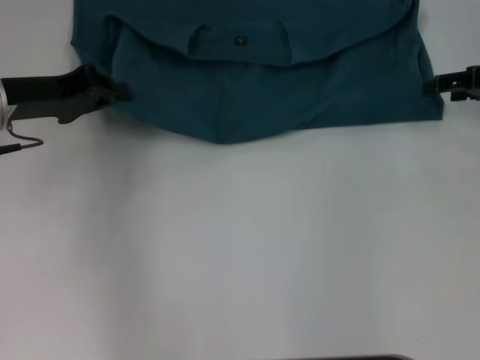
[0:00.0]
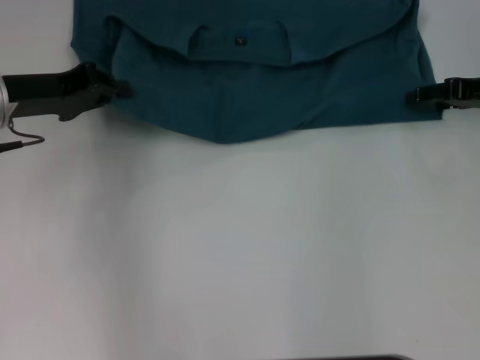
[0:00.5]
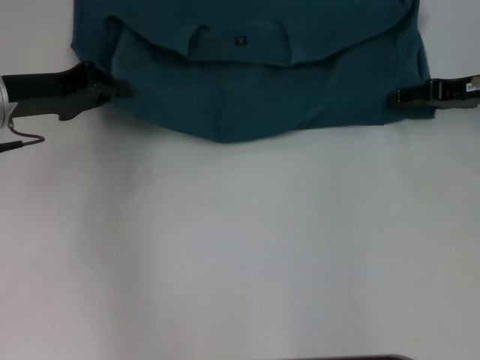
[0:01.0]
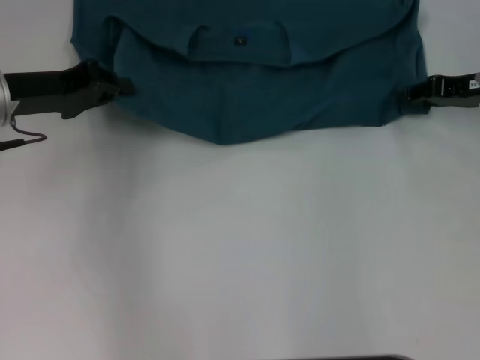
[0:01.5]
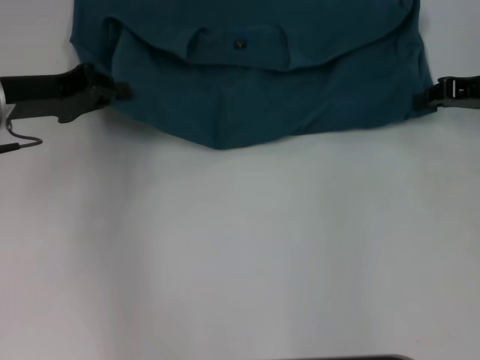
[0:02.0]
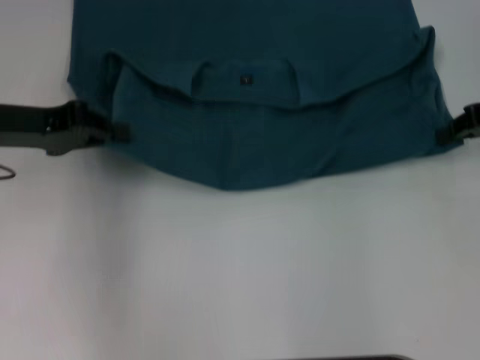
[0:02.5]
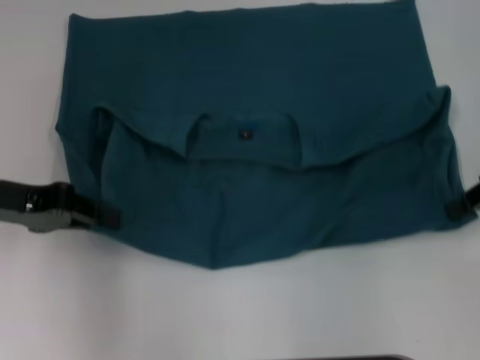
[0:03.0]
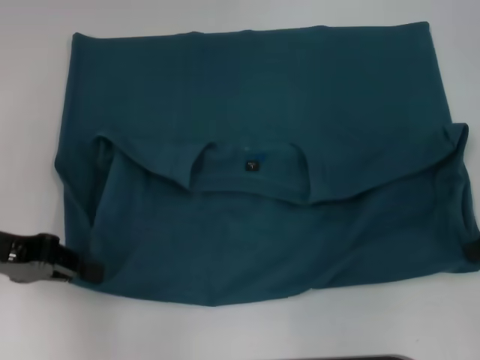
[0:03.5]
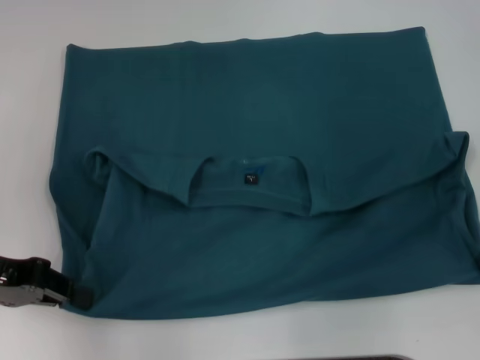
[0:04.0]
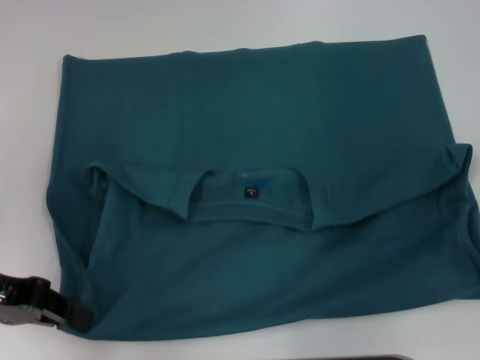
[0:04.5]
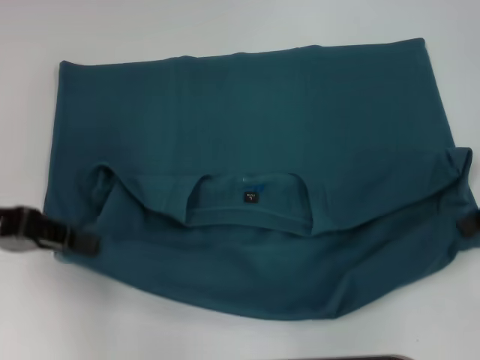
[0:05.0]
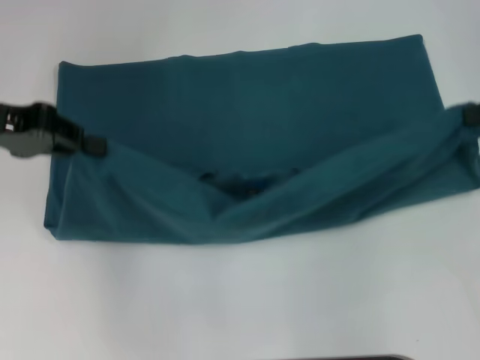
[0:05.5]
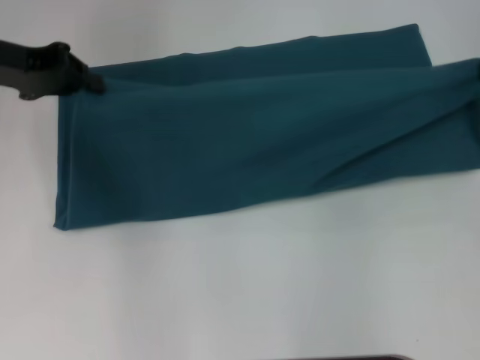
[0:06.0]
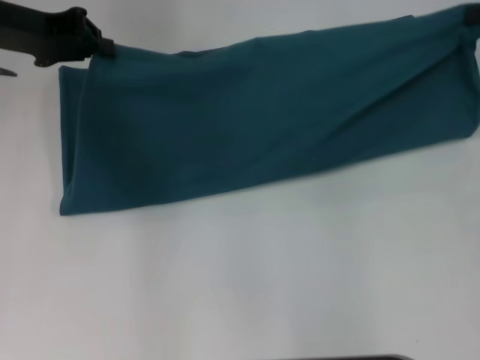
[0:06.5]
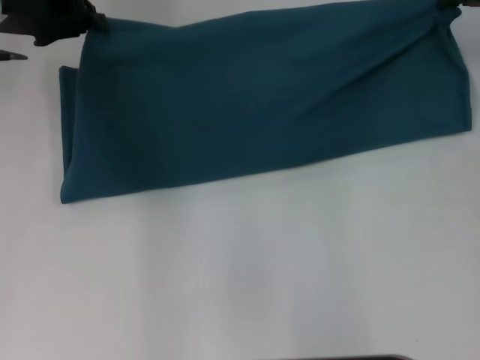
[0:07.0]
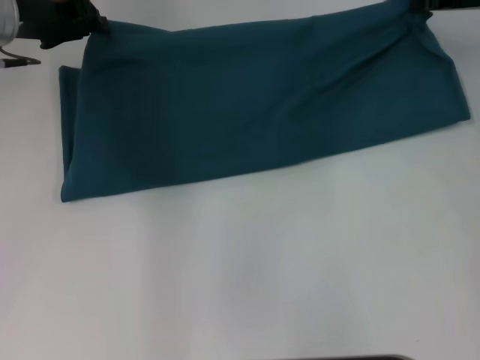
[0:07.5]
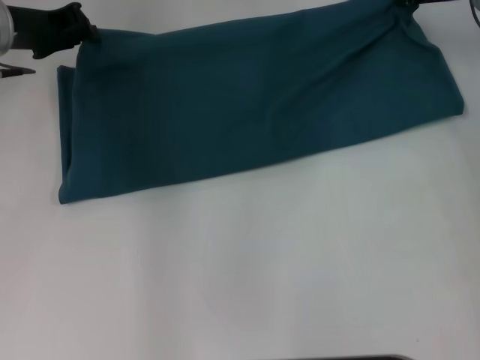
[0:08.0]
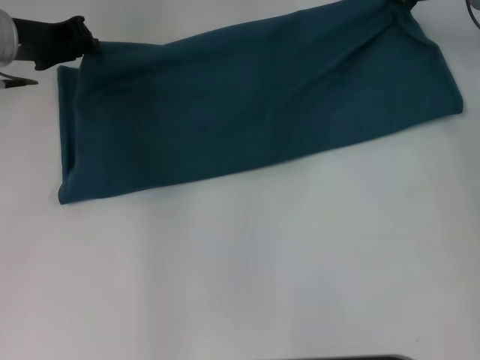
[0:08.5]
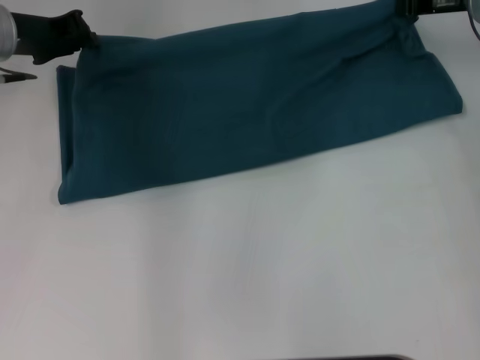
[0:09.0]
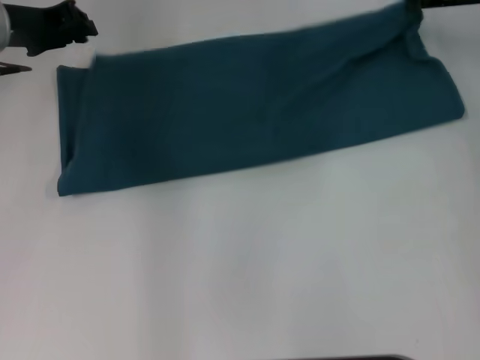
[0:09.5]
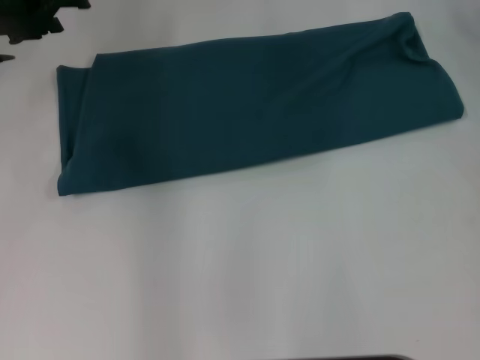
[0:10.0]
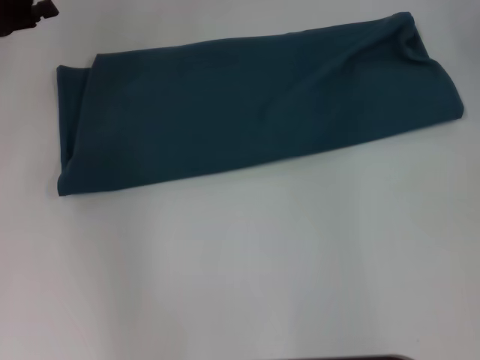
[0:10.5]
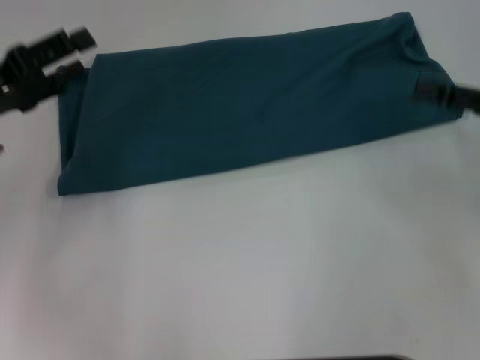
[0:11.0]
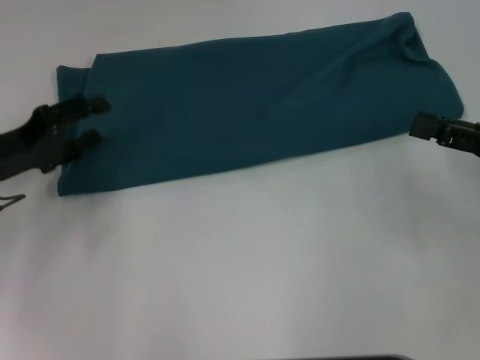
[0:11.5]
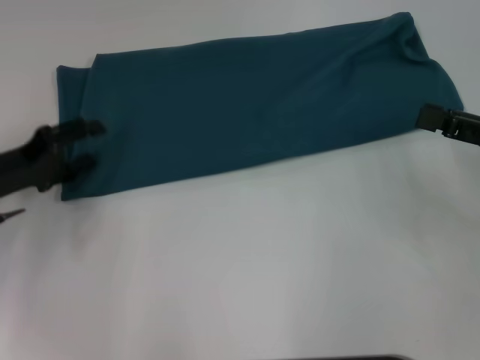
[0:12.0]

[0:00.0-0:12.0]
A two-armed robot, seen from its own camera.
Step, 0:00.0 to 0:04.0: Pull the clothes with your left hand.
Step, 0:00.0 to 0:04.0: Pull the clothes with your right hand.
Step, 0:04.5 to 0:09.5: Fold the clothes to the right.
0:00.0 to 0:02.0: The right gripper closes.
0:02.0 to 0:04.0: The two grippers go some 10 cm backward.
0:04.0 to 0:06.0: The right gripper heads forward and upward, covering approximately 10 cm. The left gripper shifts approximately 15 cm forward and upward.
0:06.0 to 0:08.0: The left gripper shifts by roughly 5 cm. Meanwhile the right gripper moves to the left and forward, some 15 cm.
0:08.0 to 0:10.0: The right gripper ends up some 5 cm from where it was, and opens up; the left gripper opens up.
0:10.0 to 0:12.0: The two grippers go roughly 20 cm backward and downward. The right gripper opens.

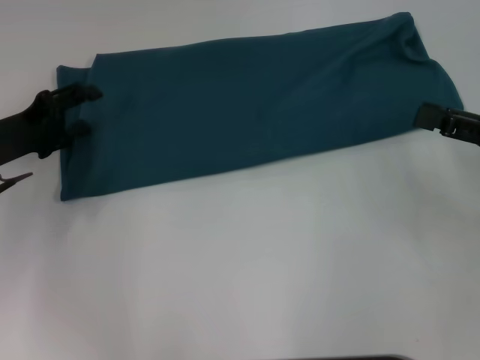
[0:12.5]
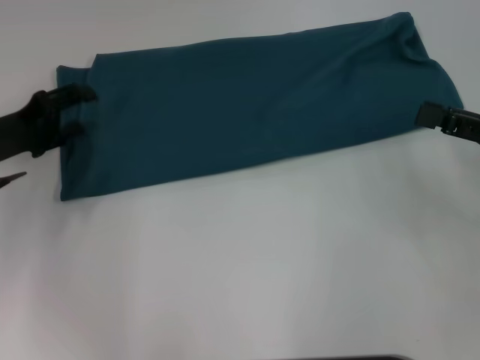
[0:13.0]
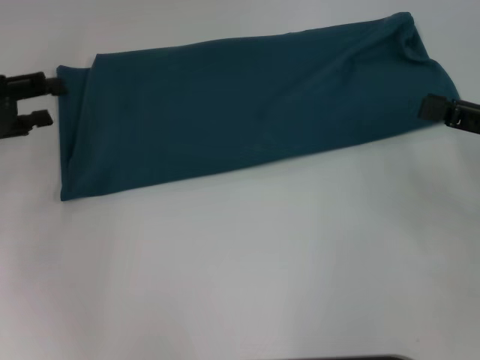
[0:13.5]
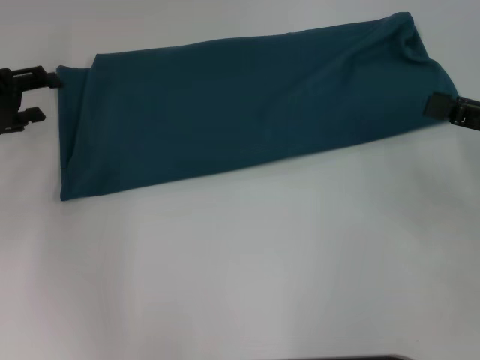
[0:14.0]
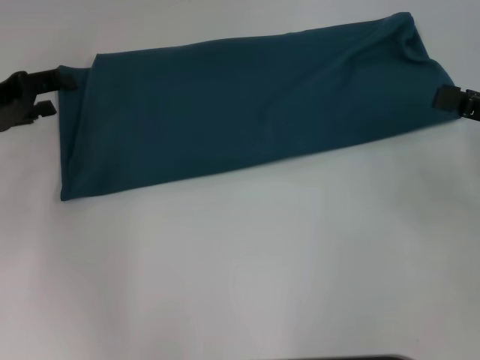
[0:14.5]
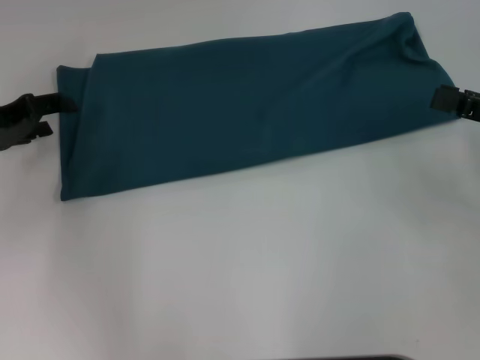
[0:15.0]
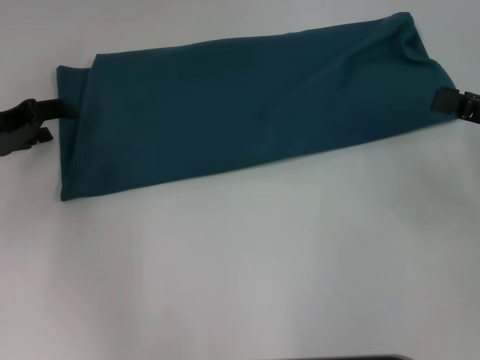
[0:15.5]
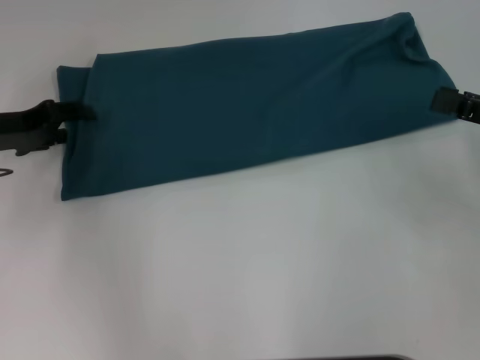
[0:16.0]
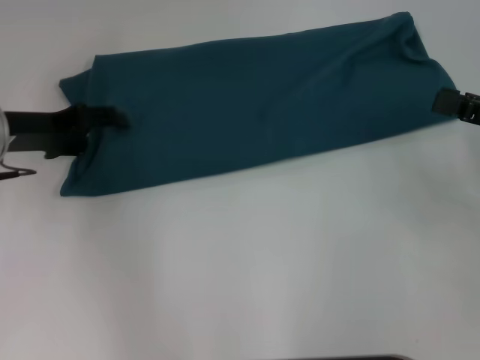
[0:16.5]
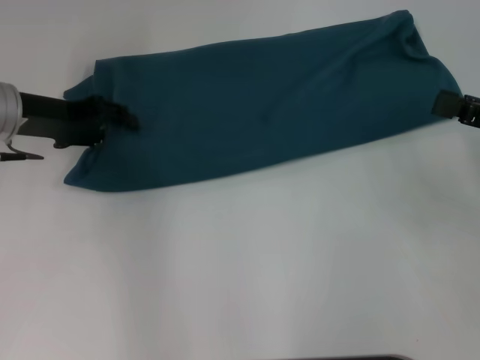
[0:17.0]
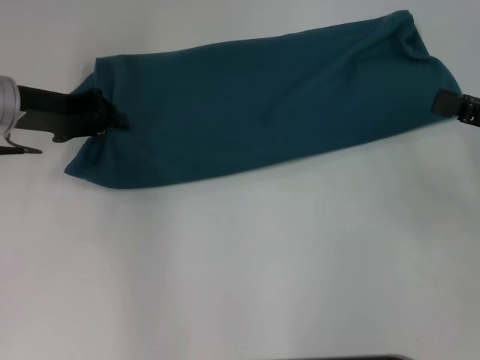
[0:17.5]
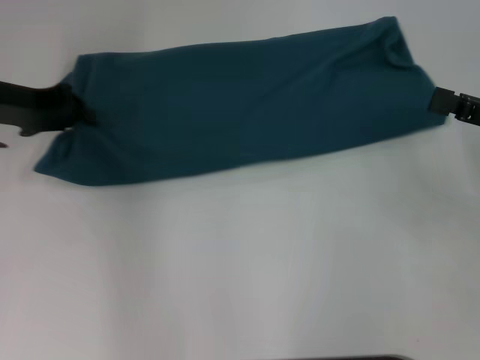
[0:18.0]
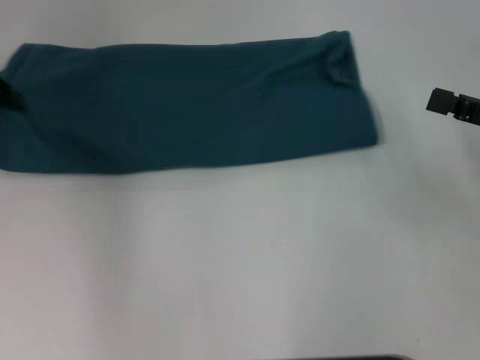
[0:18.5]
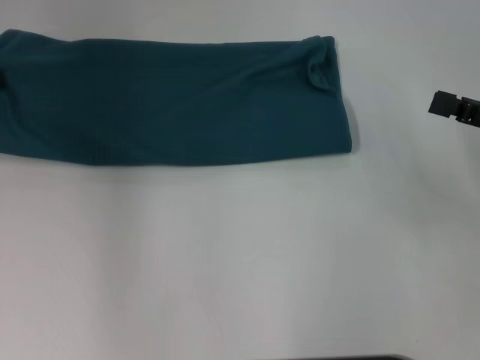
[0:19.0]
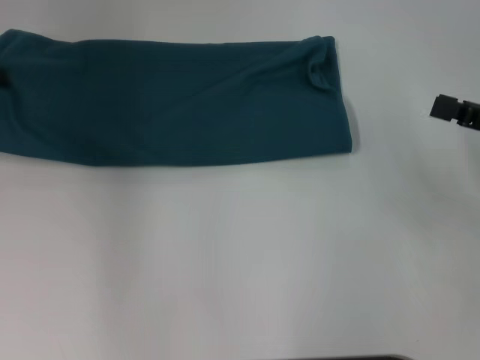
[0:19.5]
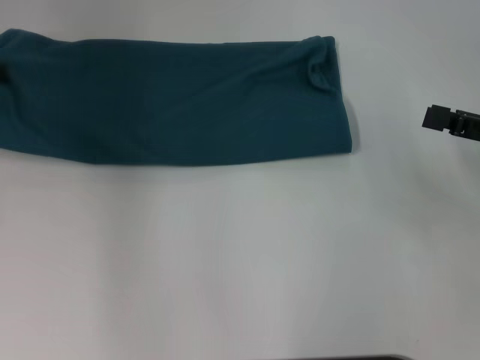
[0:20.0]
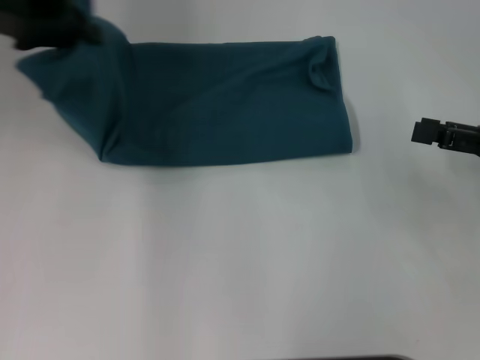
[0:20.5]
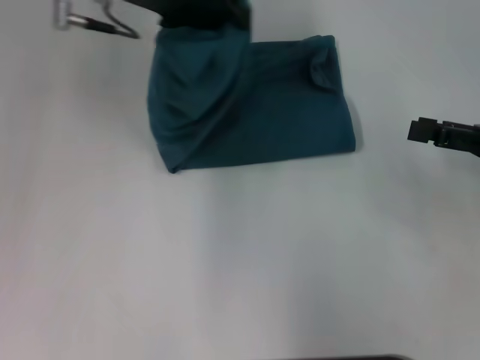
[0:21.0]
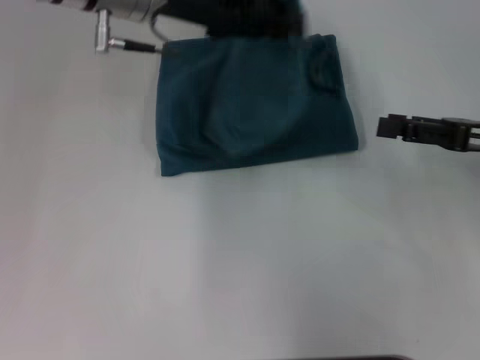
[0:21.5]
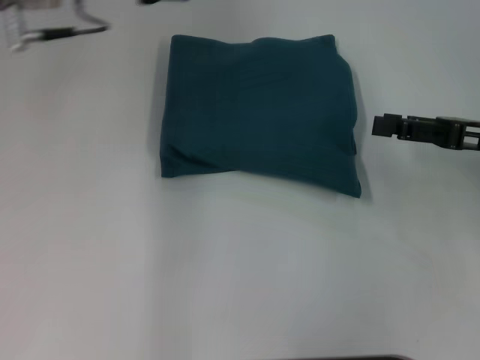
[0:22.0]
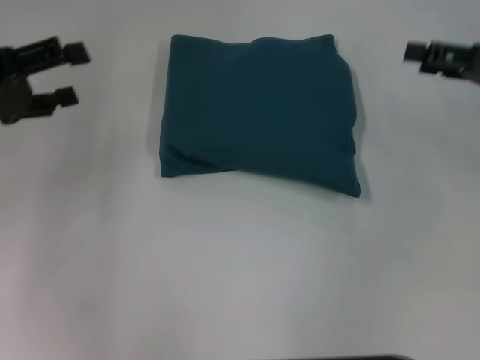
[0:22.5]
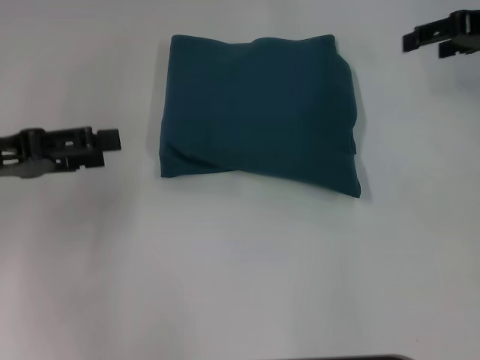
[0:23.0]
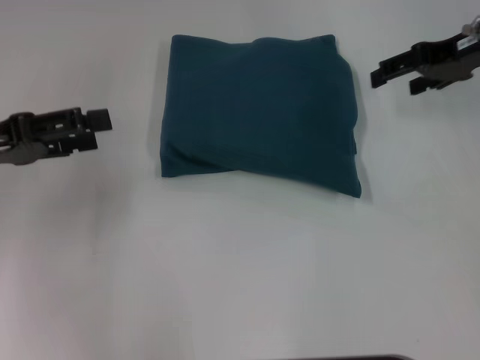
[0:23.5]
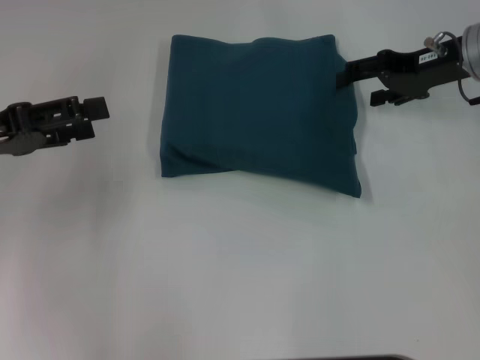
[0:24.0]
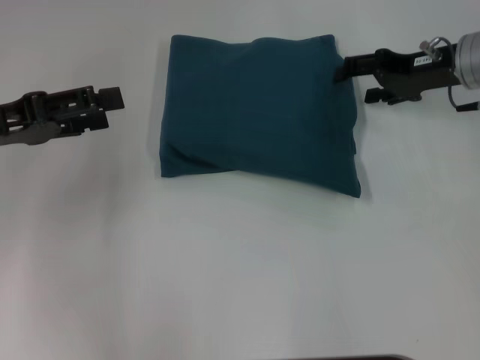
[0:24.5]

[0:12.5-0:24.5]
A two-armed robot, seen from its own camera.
Step, 0:12.5 to 0:21.5: Fold the clothes to the left.
0:12.5 to 0:14.5: The left gripper ends up some 5 cm from where it was.
0:14.5 to 0:16.5: The left gripper shifts by some 5 cm.
0:16.5 to 0:18.5: The left gripper heads to the left and upward, covering roughly 10 cm, and closes up.
0:18.5 to 0:20.5: The left gripper shifts some 10 cm to the right and upward.
0:20.5 to 0:22.5: The right gripper shifts roughly 5 cm forward; the left gripper moves backward and downward, some 10 cm, reaches approximately 15 cm to the right, then returns, and opens up.
0:22.5 to 0:24.5: The right gripper goes some 10 cm to the left and forward.

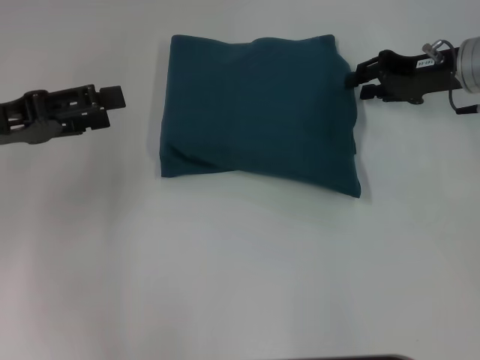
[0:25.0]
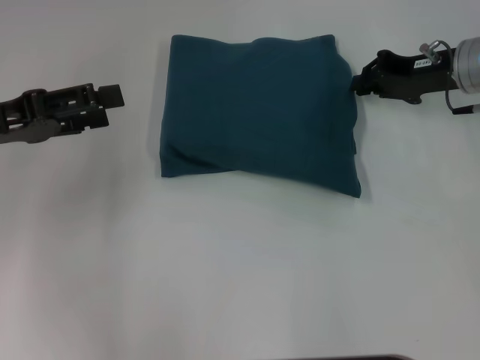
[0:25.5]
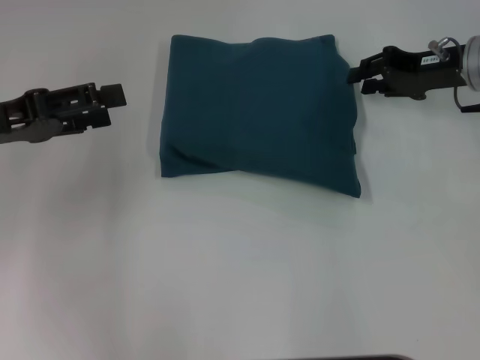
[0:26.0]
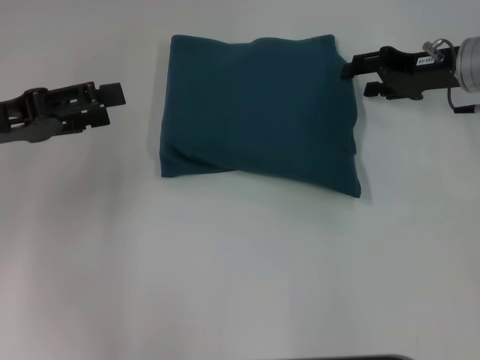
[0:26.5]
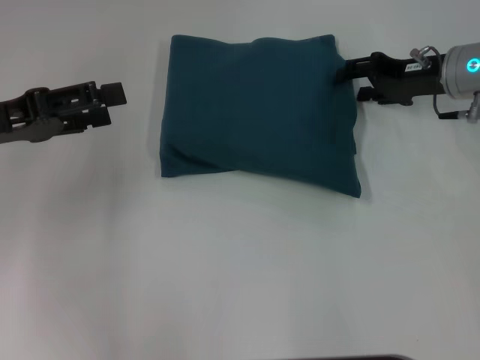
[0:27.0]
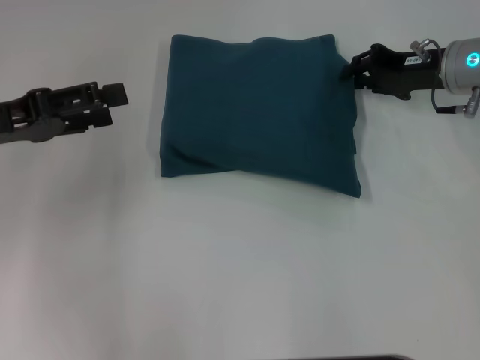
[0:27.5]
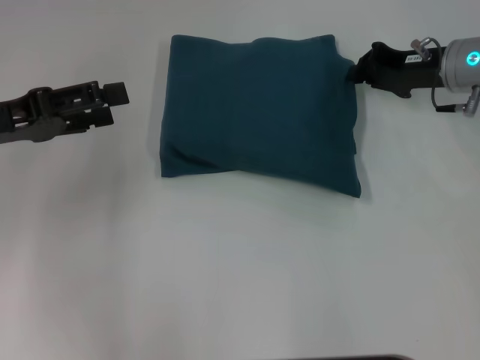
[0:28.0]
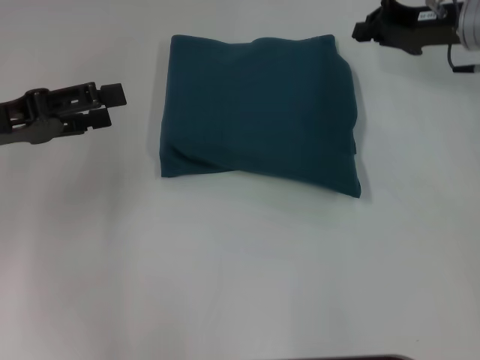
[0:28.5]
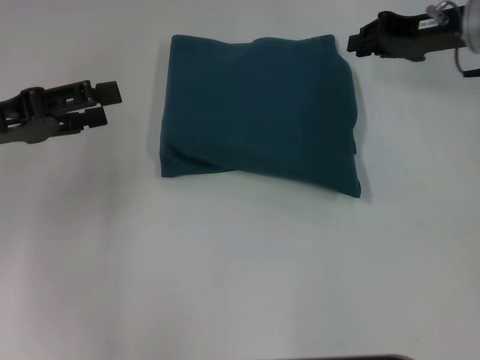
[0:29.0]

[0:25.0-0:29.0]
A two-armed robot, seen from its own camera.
0:25.0 to 0:27.0: The right gripper closes, then reopens.
0:27.0 to 0:29.0: The right gripper goes approximately 5 cm upward, and closes.
